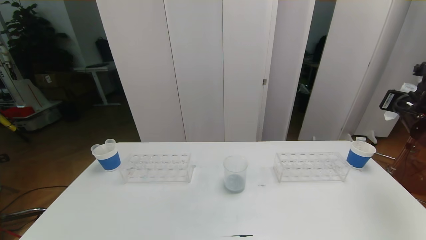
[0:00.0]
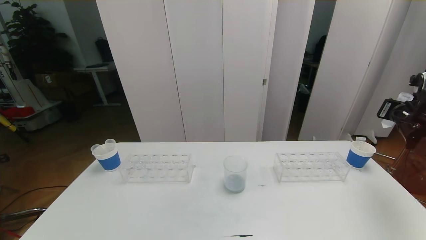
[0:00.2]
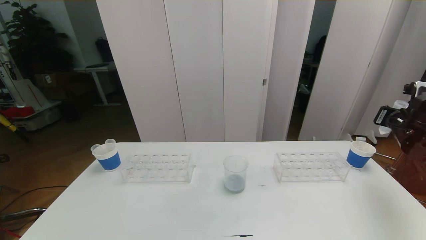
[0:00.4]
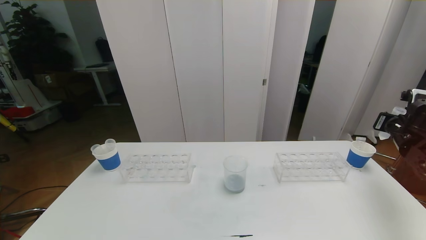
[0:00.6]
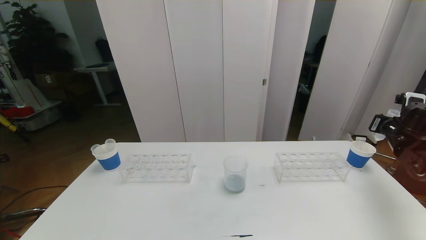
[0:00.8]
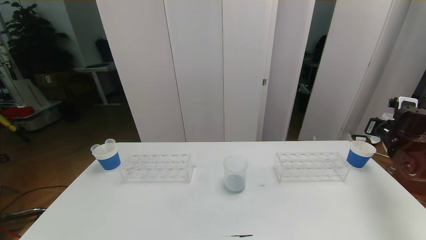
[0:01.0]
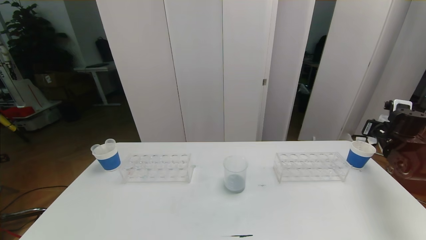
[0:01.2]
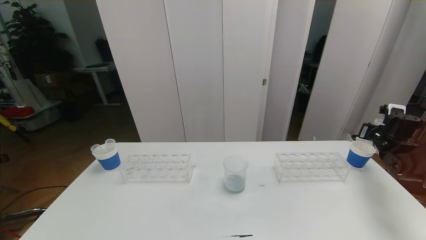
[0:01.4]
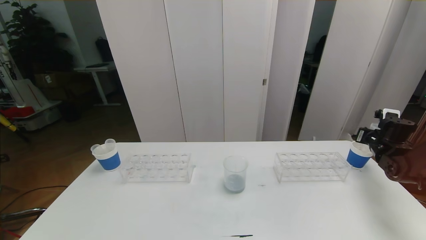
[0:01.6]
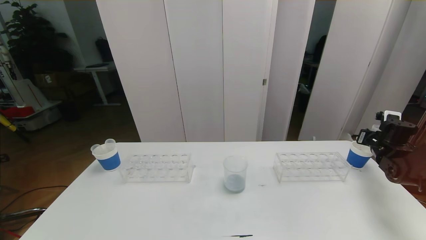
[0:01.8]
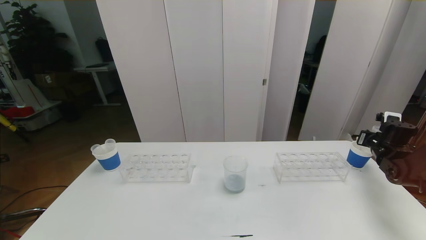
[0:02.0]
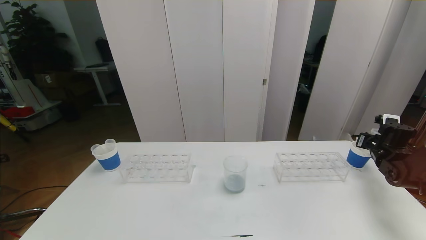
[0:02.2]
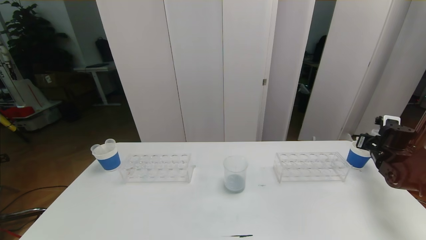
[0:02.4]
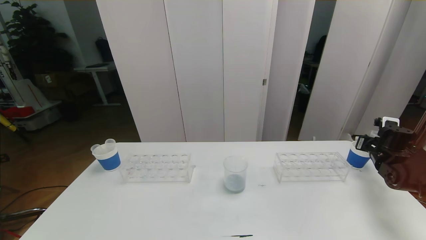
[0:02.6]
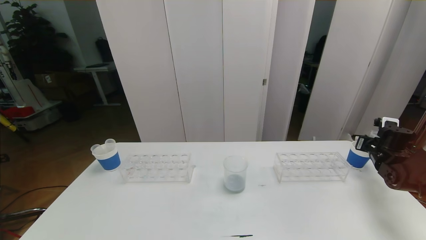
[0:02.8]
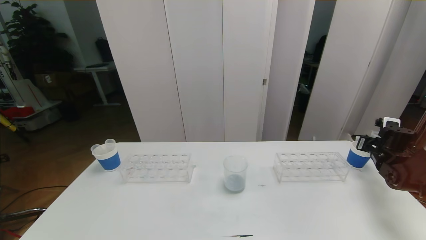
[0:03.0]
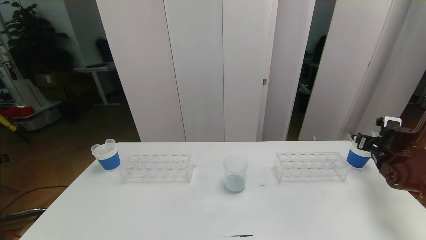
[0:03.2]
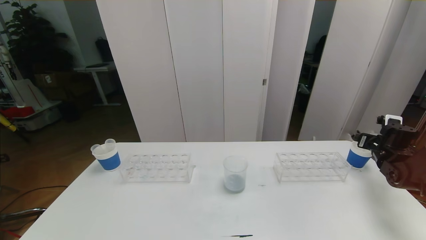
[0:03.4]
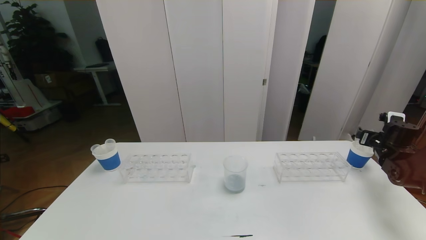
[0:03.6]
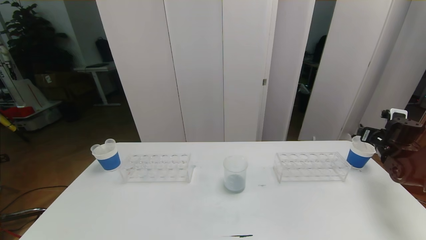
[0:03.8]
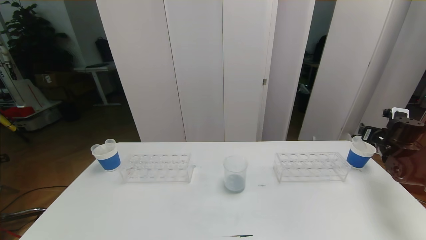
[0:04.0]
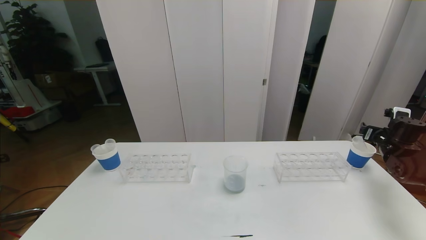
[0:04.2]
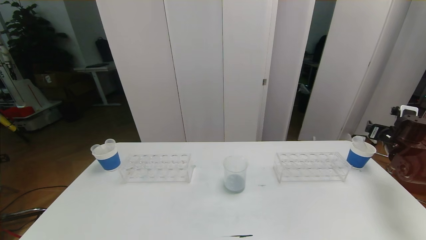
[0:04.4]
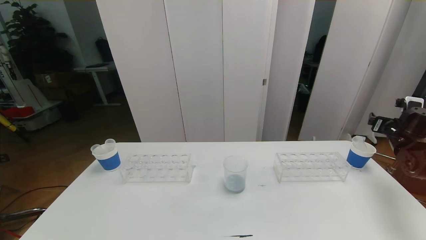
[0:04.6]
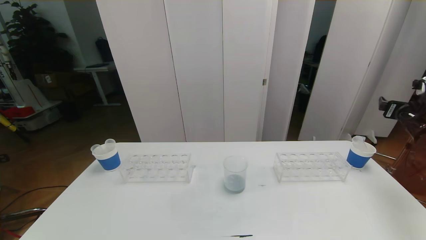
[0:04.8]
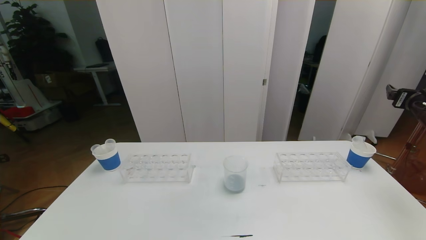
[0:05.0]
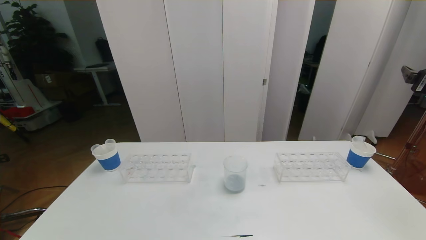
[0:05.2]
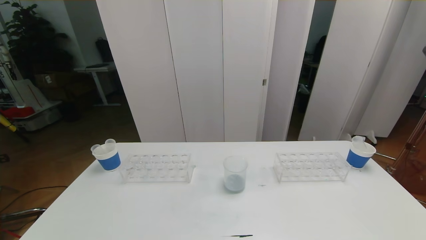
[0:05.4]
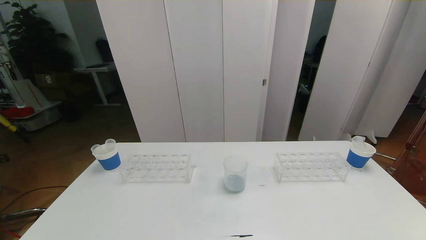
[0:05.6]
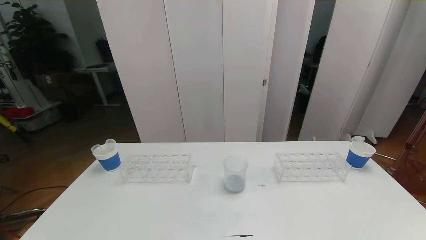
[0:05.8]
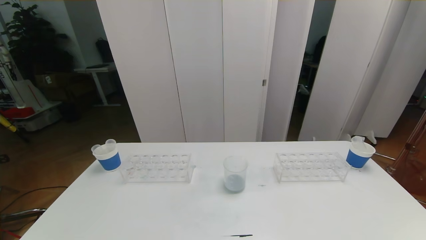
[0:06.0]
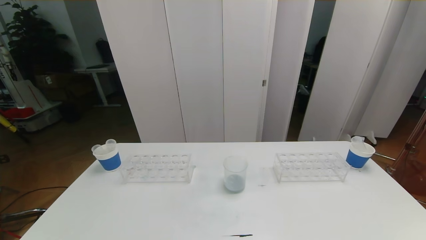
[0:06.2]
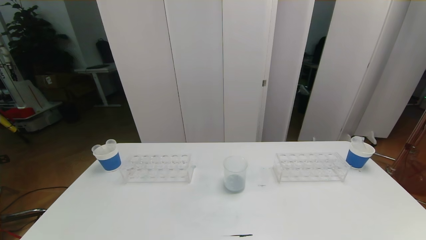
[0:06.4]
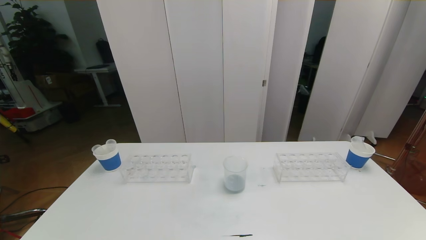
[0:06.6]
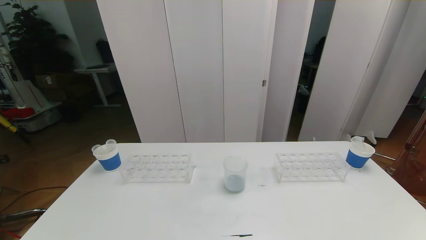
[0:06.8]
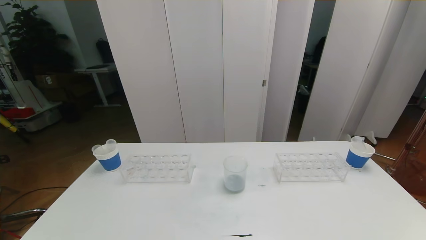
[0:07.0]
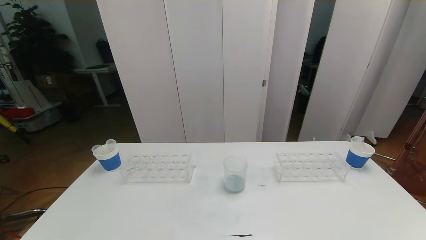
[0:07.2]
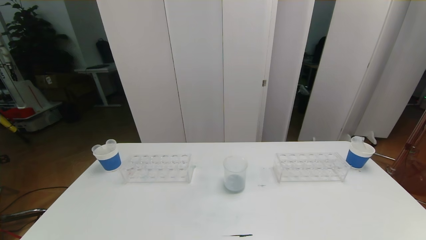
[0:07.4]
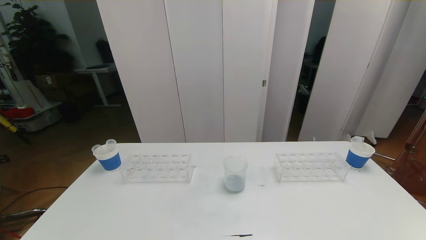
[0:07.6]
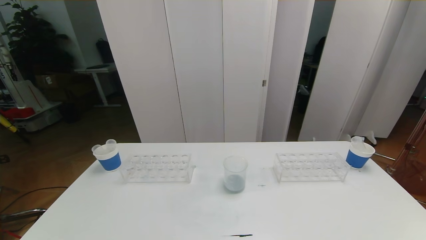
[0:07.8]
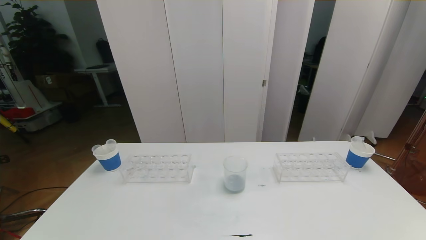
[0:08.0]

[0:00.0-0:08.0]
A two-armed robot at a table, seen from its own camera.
Task of the whole recording: pick up the test tube with red pigment the test tube with blue pigment and the test tube with white pigment by grippers and pour them into the beaker.
Step, 0:00.0 to 0:08.0: Pour the white reagent into the graduated cylinder and place the test tube into the paper cup.
0:00.0 to 0:01.6: The right gripper is displaced downward and forward by about 15 cm.
0:01.6 to 0:03.2: The right gripper opens.
0:03.2 to 0:04.8: The right gripper goes about 10 cm upward.
0:04.8 to 0:06.4: The right gripper is displaced backward by some 40 cm.
